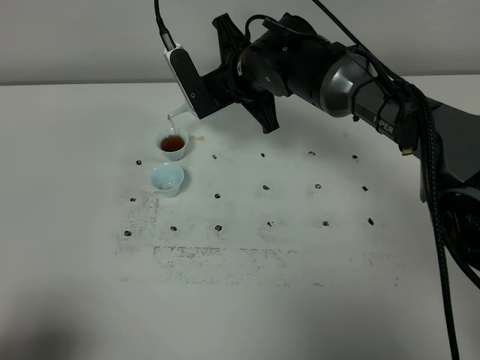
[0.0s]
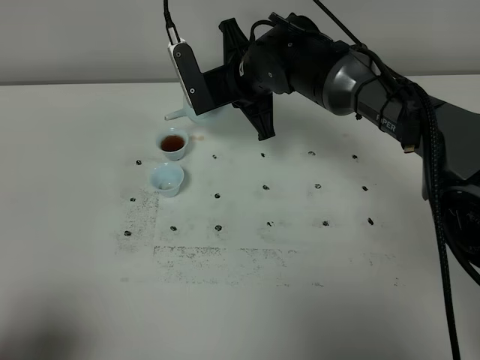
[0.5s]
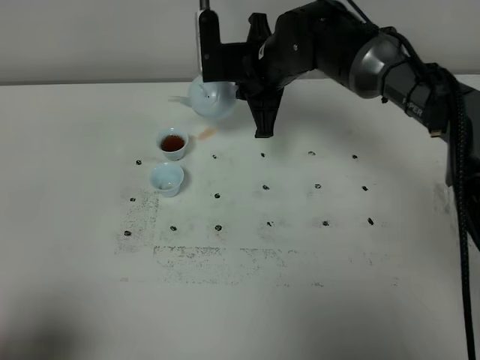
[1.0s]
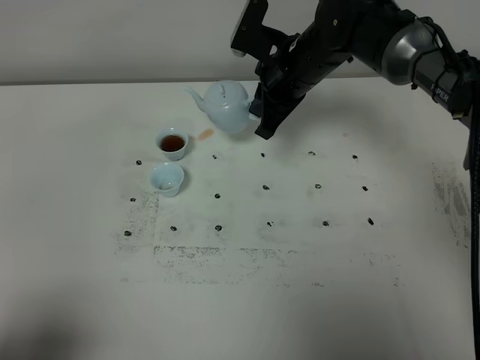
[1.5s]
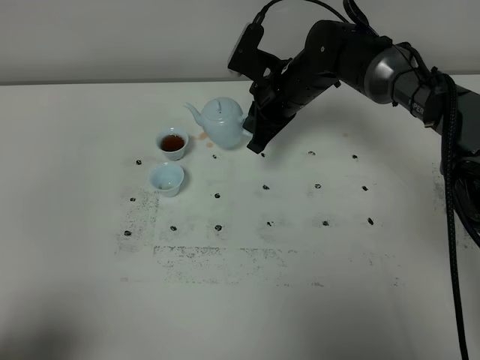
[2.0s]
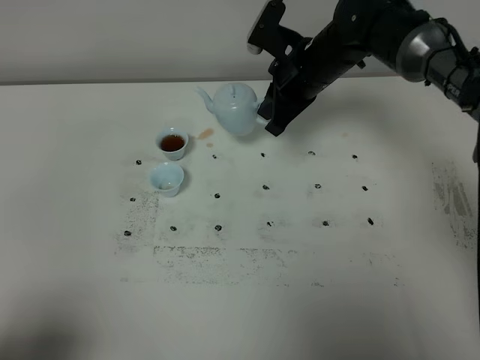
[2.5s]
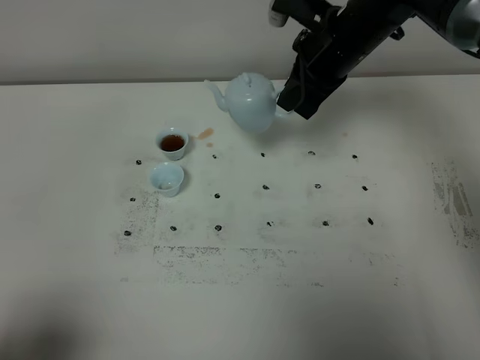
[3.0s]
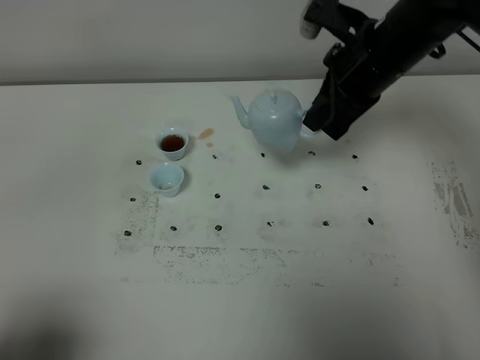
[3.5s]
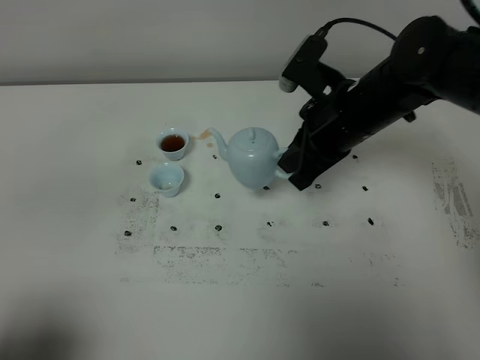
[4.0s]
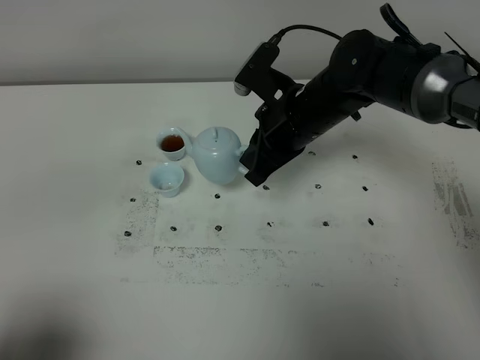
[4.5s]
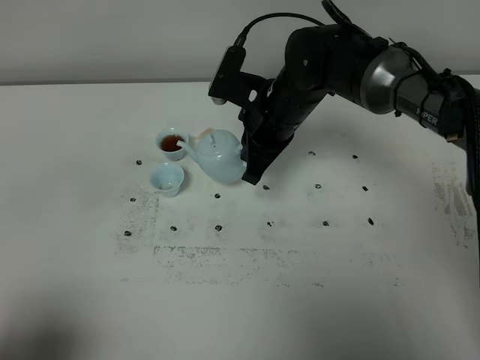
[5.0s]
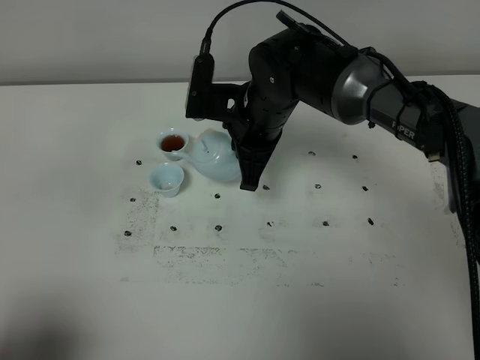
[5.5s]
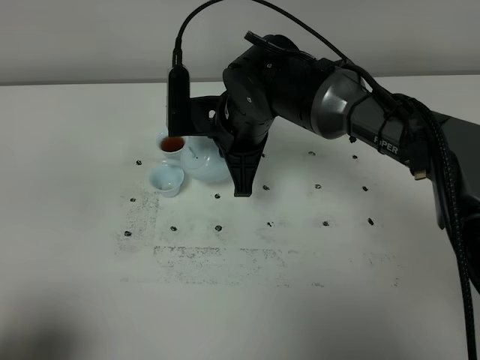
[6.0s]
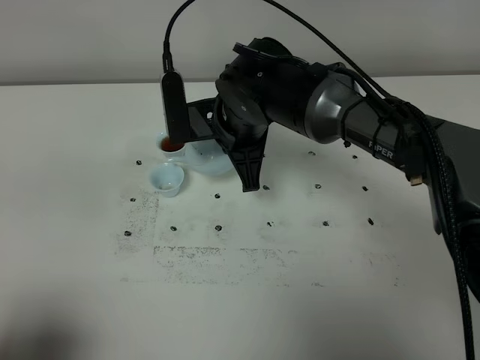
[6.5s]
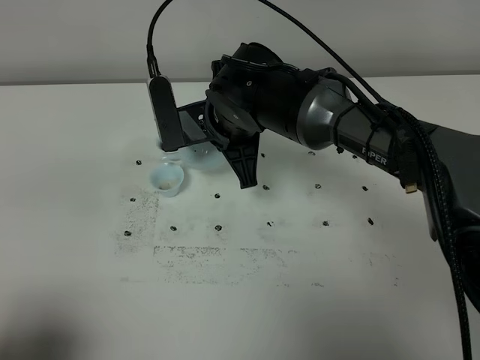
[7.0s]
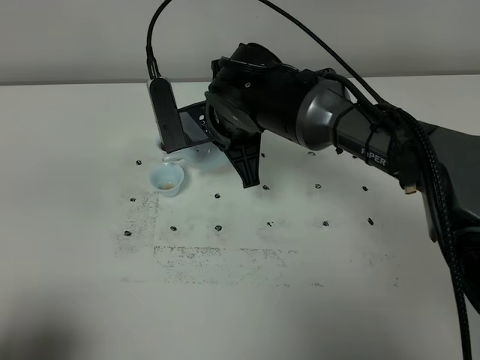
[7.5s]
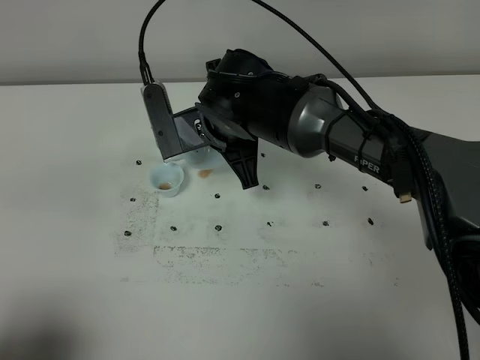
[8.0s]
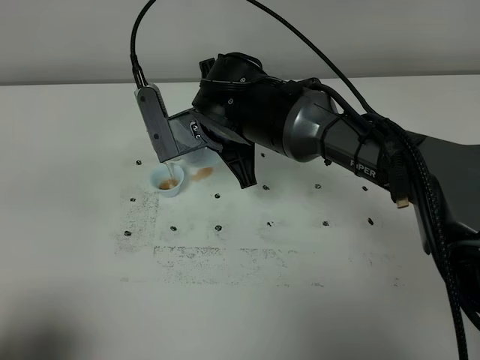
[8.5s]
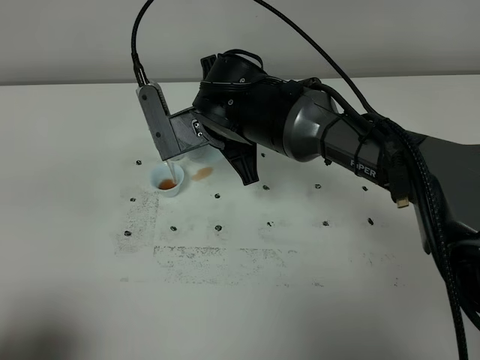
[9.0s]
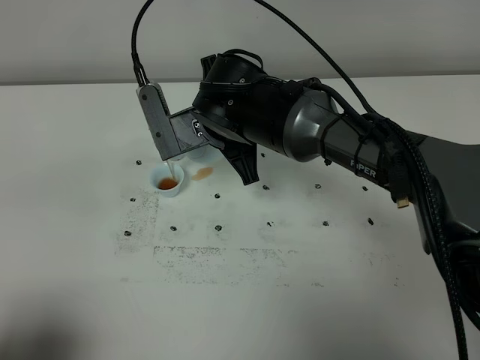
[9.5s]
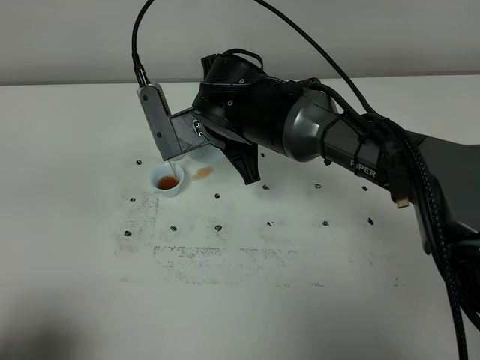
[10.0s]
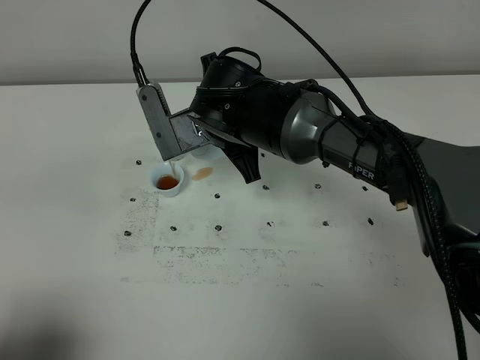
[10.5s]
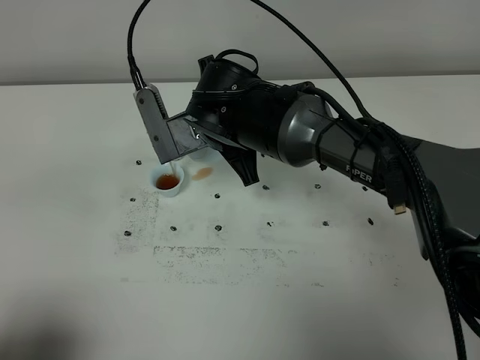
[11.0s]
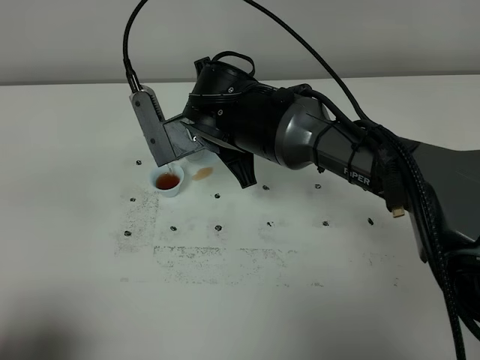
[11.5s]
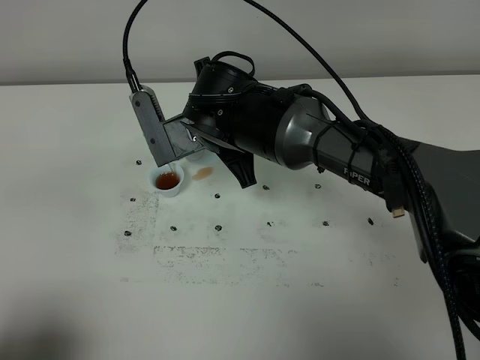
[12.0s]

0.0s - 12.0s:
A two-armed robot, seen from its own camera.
Task of the whole recording: grasp the blue porcelain teapot and pour the tea into the two blue porcelain teacups one by one, put the blue porcelain teapot back in its original place.
0.0s - 2.0s: The right gripper moves to the right, roughly 5 cm.
2.0s - 4.0s: The right gripper moves backward and upward, roughly 15 cm.
4.0s - 6.0s: The right gripper travels to the left by some 10 cm.
8.0s - 10.0s: The two grippers keep their place.
10.0s - 12.0s: Both grippers stay put.

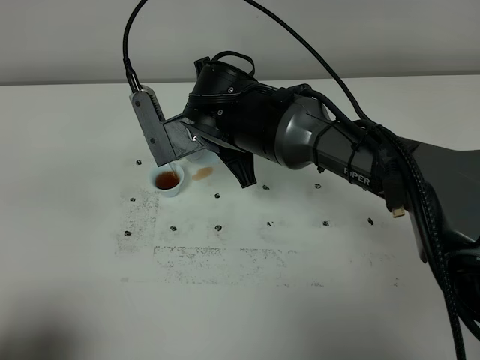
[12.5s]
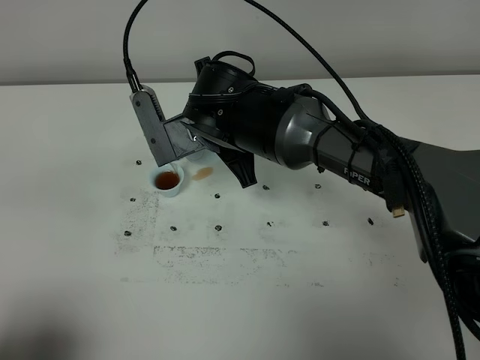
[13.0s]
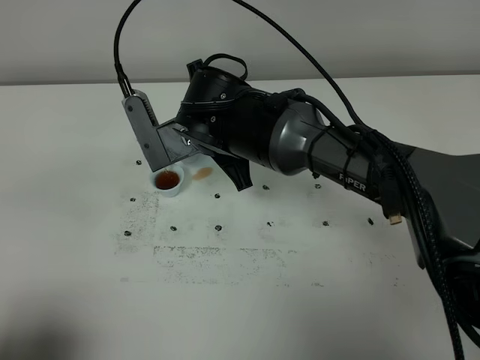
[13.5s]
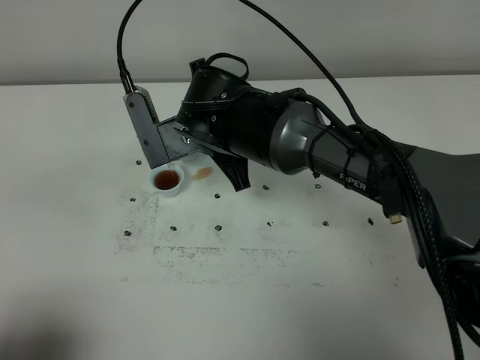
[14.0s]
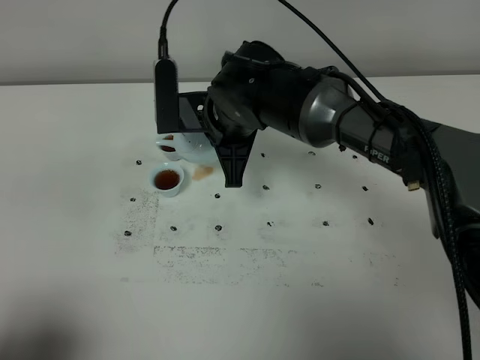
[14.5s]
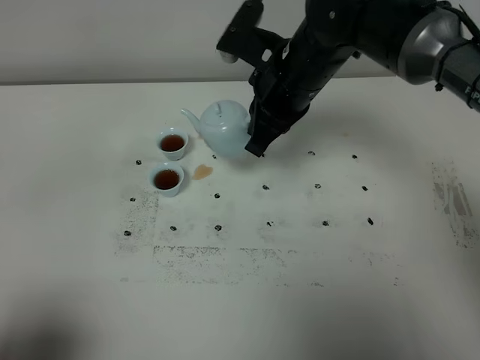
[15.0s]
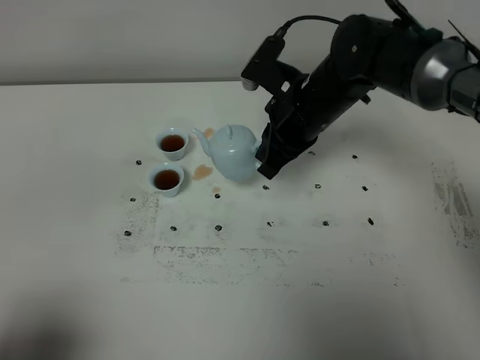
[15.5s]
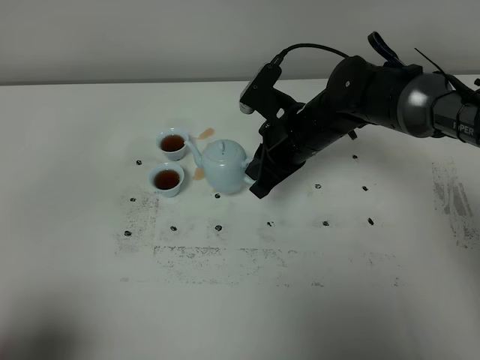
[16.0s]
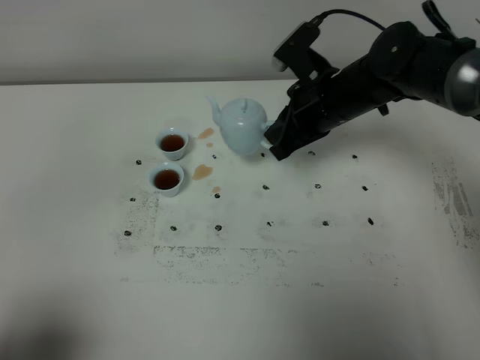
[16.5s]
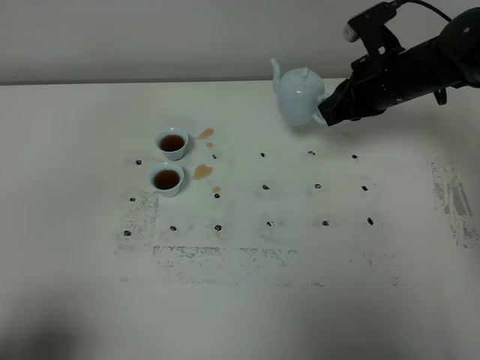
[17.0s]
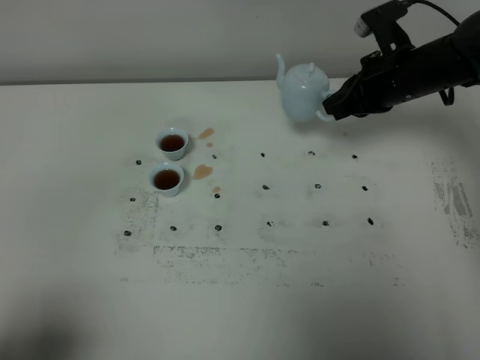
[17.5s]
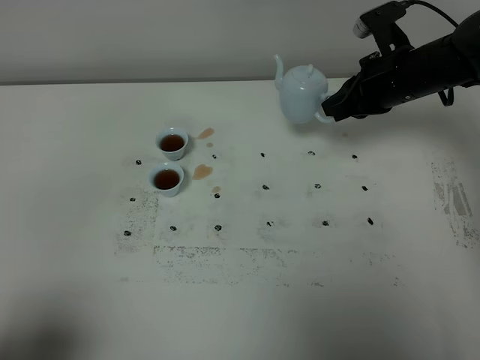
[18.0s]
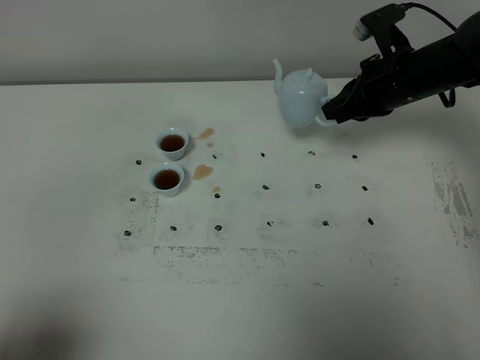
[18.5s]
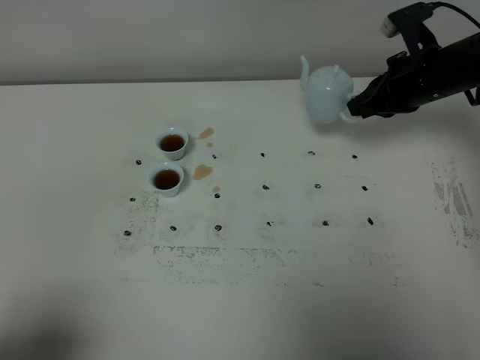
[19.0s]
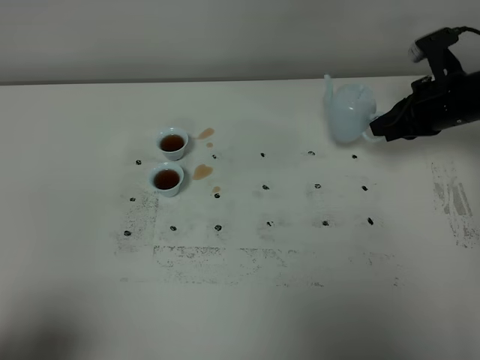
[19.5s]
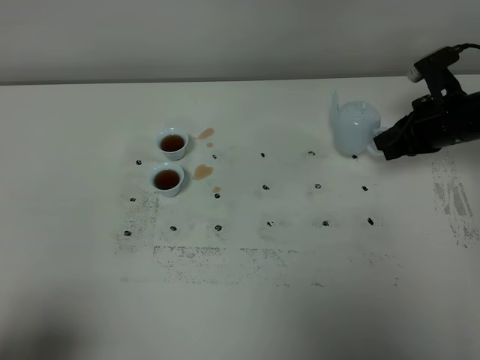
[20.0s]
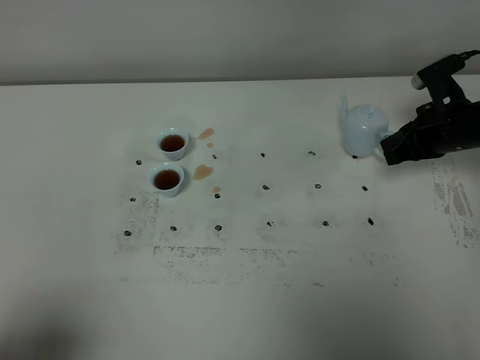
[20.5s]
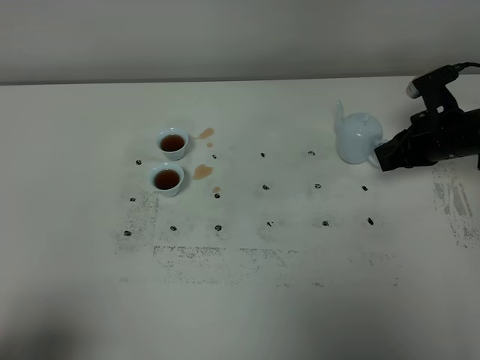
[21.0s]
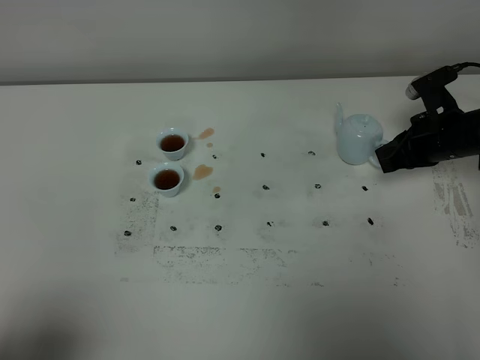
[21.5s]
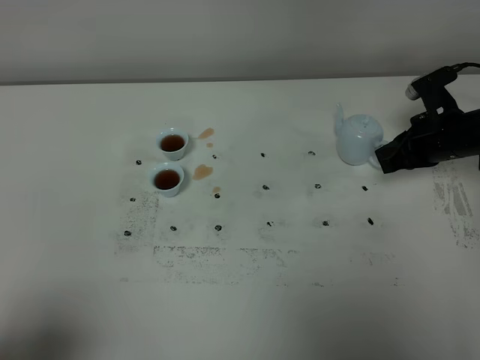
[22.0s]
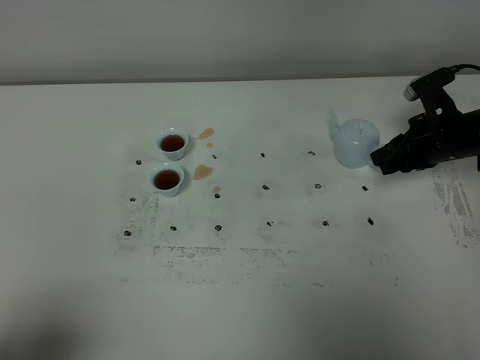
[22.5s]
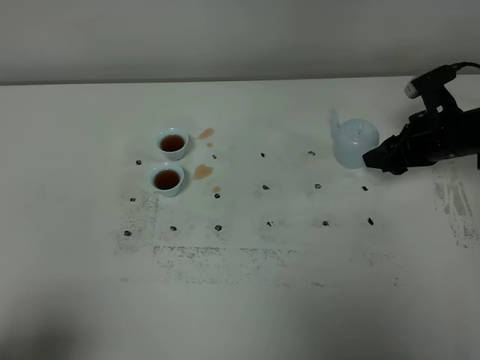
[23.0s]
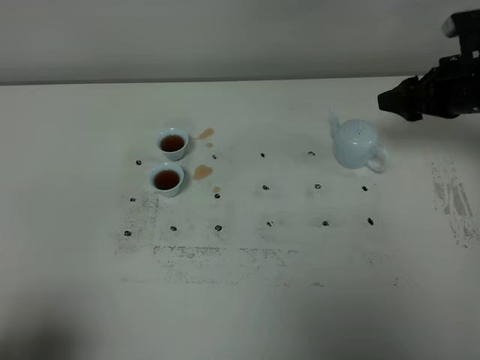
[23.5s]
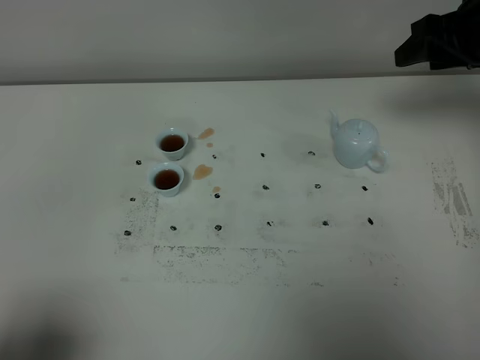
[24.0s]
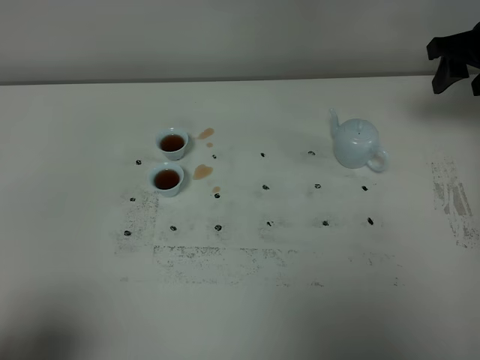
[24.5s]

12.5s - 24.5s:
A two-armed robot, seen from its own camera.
Task of the whole recording: grasp the blue porcelain teapot and pour the tea into the two blue porcelain teacups one by one, put the blue porcelain teapot back in its original place.
Step, 12.5s - 14.5s: Pour tea into the teacup with the right gripper.
14.5s - 16.5s: The right gripper is displaced to the right by approximately 15 cm.
16.5s - 18.5s: The right gripper is displaced to the right by roughly 10 cm.
18.5s - 20.5s: The right gripper is displaced to the right and downward by approximately 10 cm.
20.5s - 22.5s: The right gripper opens.
22.5s - 24.5s: The right gripper heads upward, covering some 15 cm, and opens its fingers.

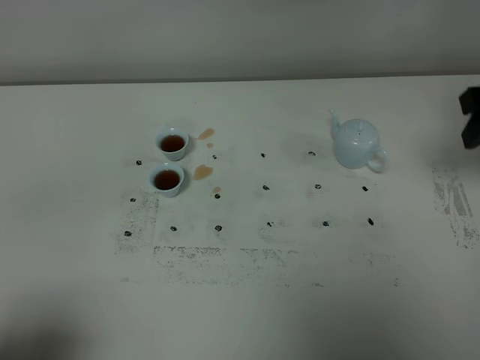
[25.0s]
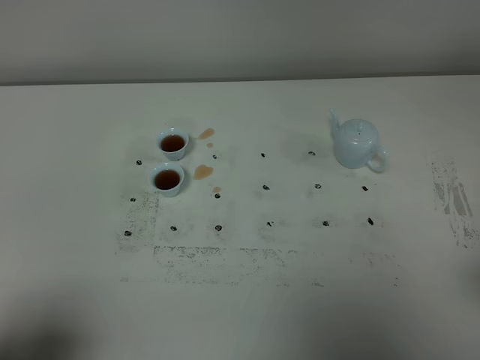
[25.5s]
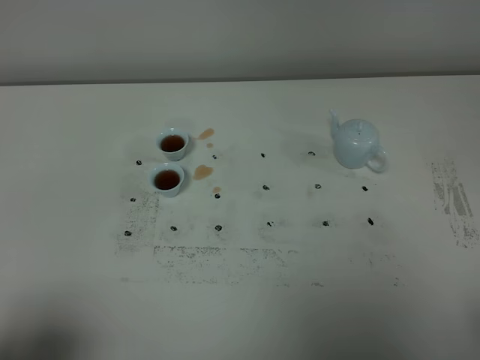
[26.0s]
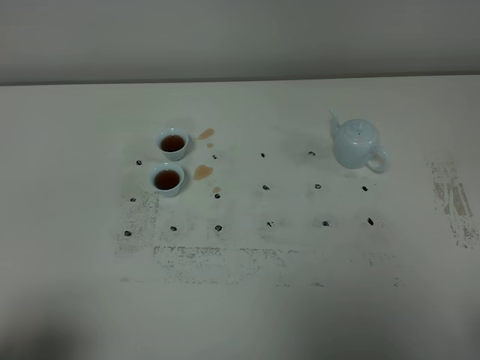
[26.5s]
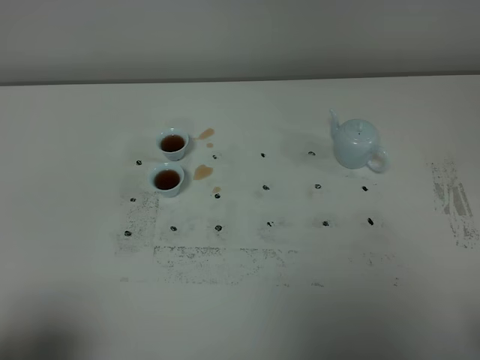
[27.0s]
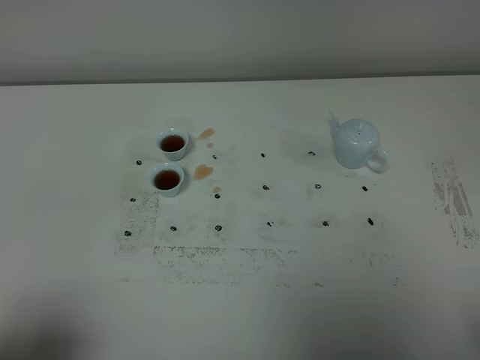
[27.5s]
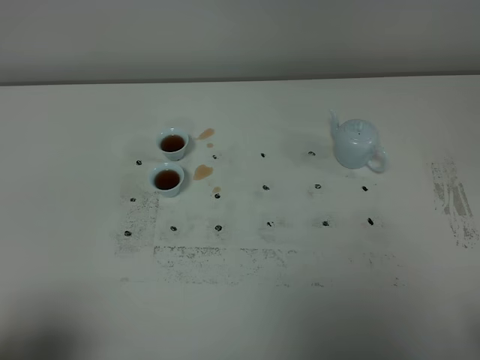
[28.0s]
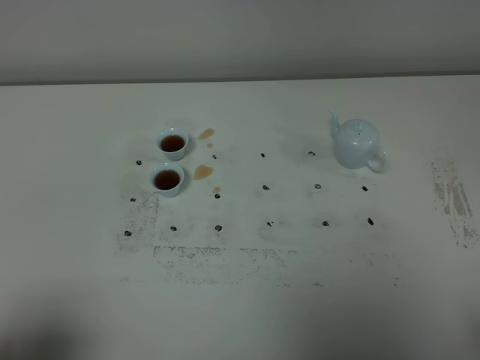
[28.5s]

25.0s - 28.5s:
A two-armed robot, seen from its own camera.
Task of the whole recording: grasp the blue porcelain teapot and pour the tea into the two blue porcelain teacups one by one, put the blue porcelain teapot back in its original place.
25.0s - 27.0s: The right gripper is displaced backward by some 30 cm.
27.0s - 28.5s: The two grippers keep their place.
